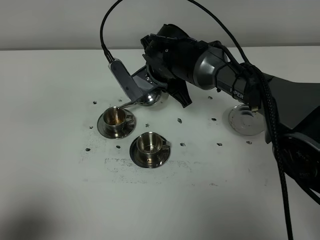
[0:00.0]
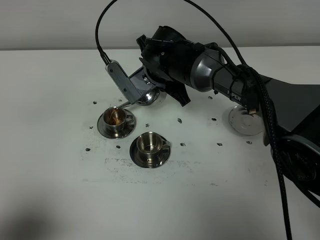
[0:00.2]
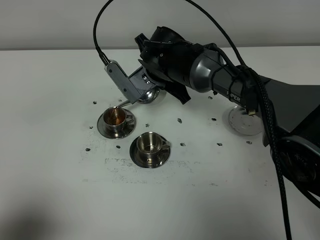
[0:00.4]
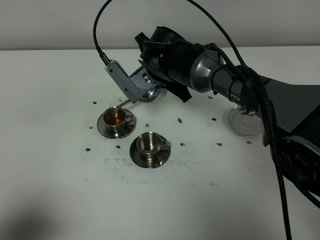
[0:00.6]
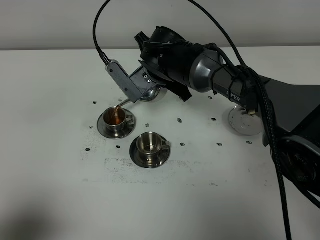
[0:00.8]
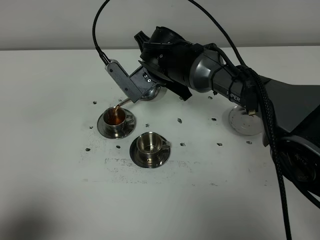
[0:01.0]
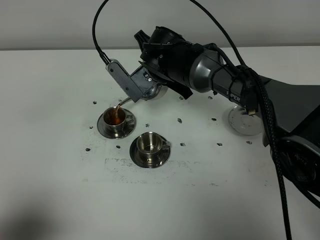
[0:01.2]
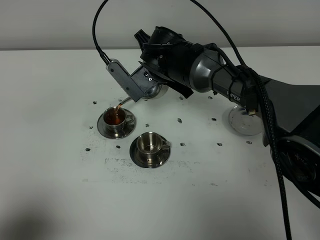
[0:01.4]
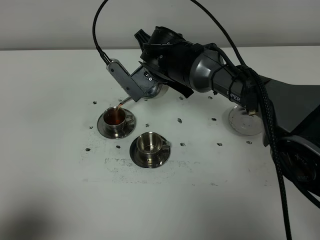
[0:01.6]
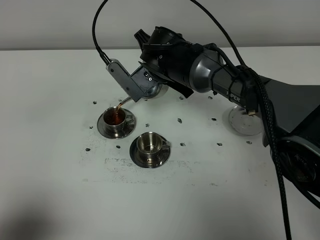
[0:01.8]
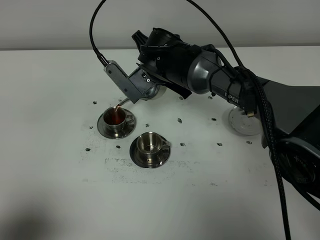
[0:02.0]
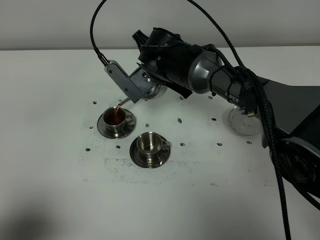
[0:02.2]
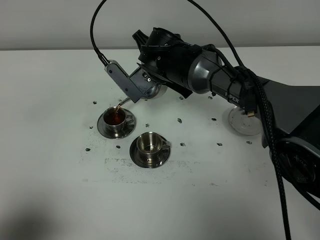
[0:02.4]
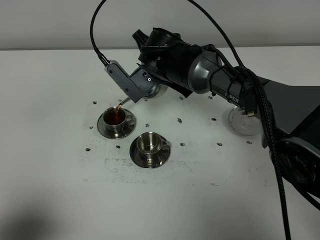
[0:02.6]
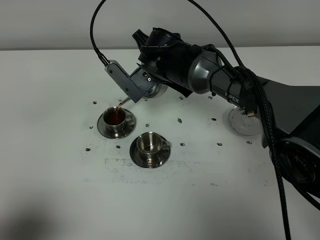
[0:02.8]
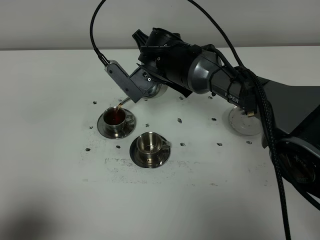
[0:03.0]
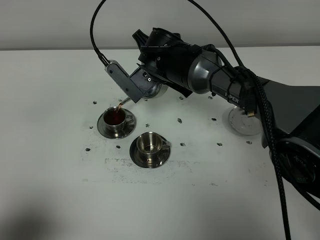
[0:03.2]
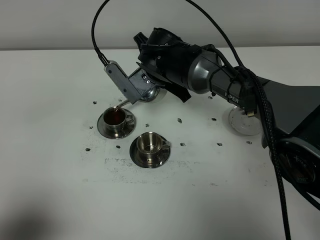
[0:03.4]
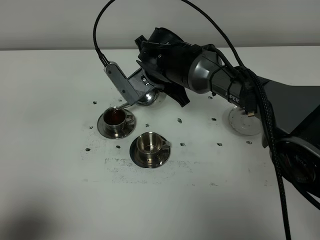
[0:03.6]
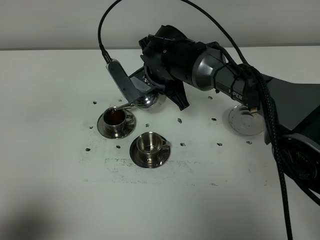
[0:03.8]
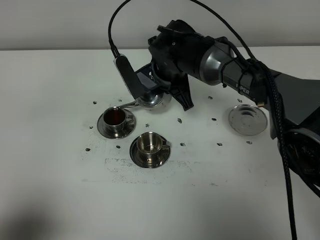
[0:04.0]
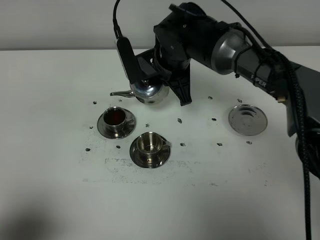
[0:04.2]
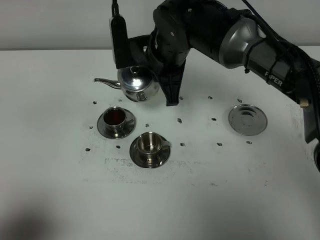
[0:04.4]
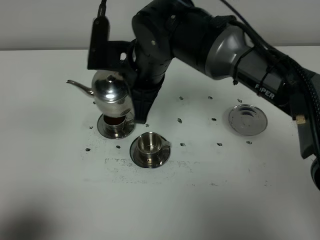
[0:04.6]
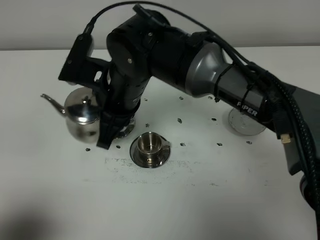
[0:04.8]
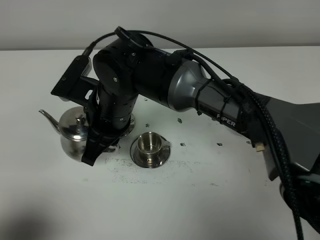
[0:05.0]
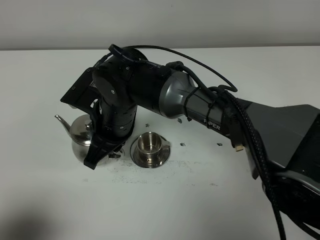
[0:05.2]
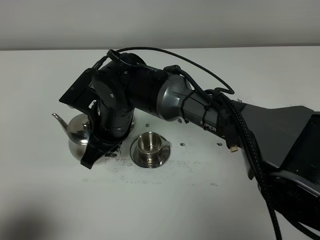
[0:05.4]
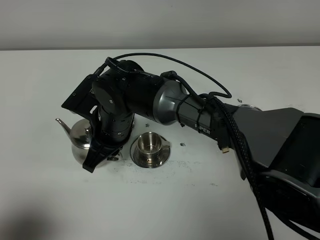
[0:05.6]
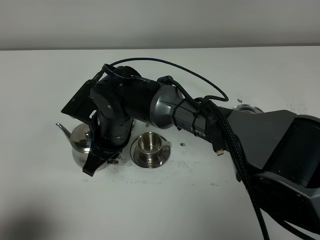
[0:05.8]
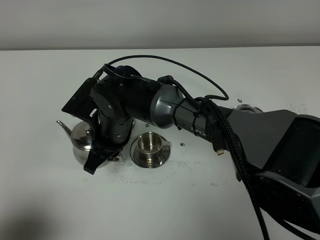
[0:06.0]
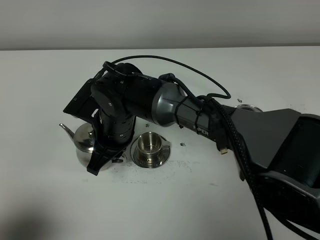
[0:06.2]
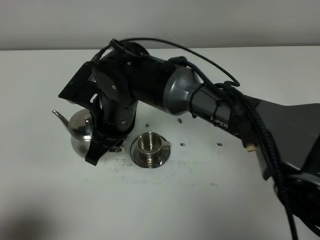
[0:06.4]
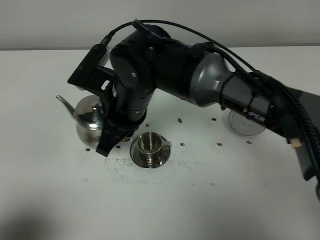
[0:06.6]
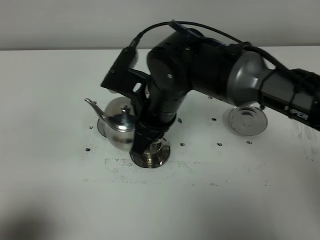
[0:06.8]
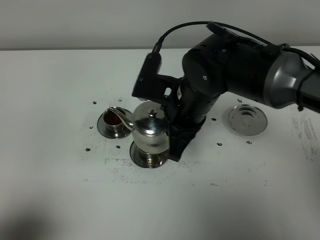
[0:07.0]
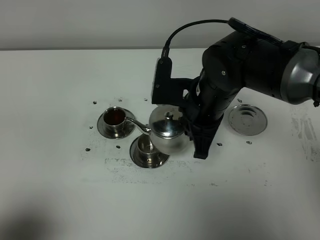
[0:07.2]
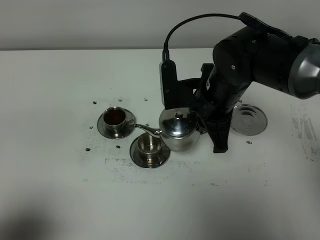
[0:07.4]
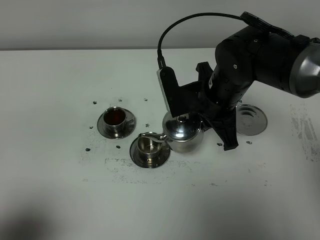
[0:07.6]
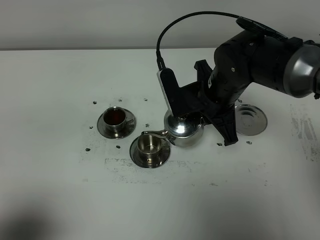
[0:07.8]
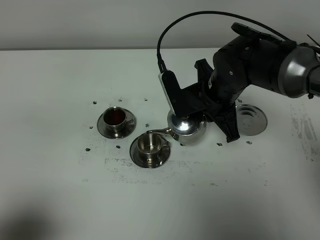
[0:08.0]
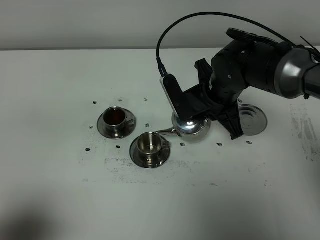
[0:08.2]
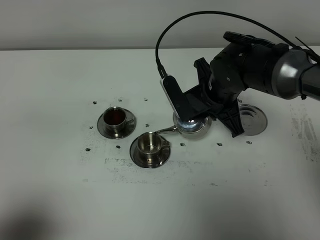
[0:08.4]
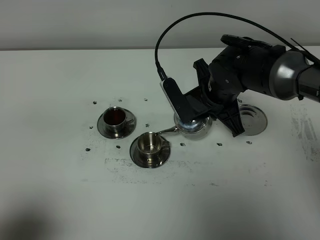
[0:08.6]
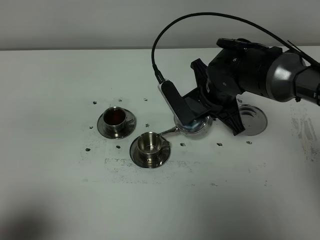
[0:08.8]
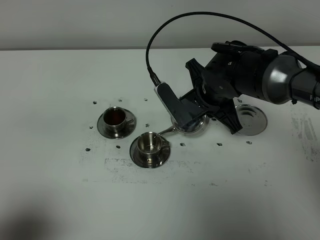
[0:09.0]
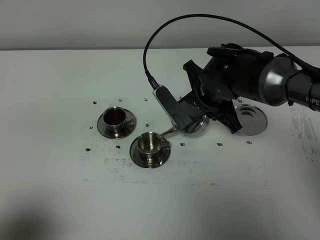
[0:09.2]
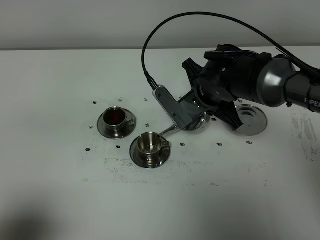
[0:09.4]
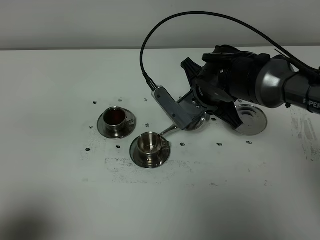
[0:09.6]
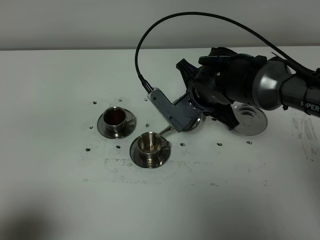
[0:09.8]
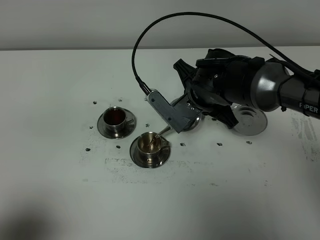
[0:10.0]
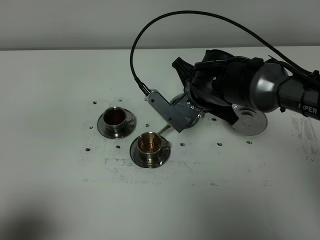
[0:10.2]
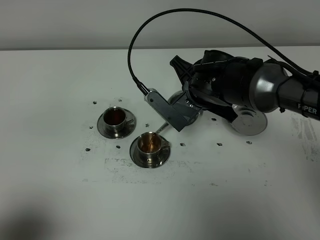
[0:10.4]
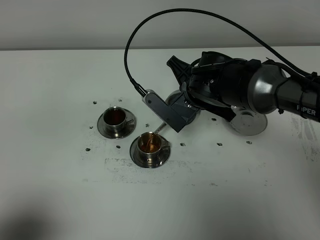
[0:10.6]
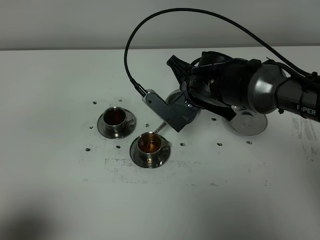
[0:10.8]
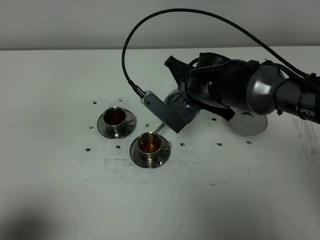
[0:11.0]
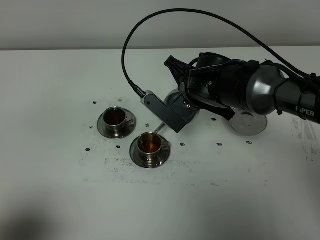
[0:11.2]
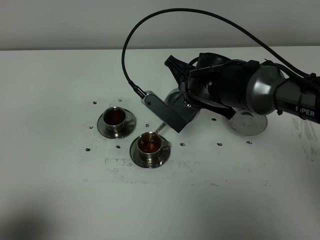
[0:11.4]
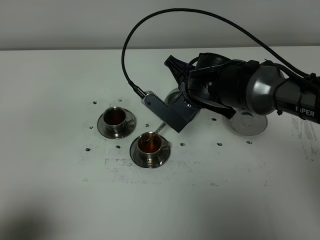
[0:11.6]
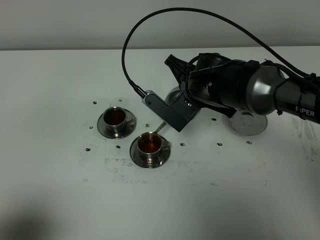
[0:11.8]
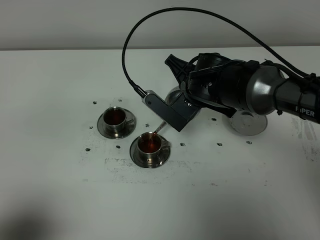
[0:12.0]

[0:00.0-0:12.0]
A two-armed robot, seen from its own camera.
Task of the whole recording: grasp the stainless steel teapot and pour the tea into the two stainless steel teacups one by one, put the stainless steel teapot back in its original place.
Step, 0:00.0 to 0:03.6: Pour tea into the teacup with the right gripper.
0:00.0 to 0:01.6: The grippers move only a little.
0:01.6 to 0:03.0: Both grippers stay about where they are.
0:03.0 to 0:04.4: The right gripper moves upward, roughly 5 cm.
0:04.4 to 0:06.0: The right gripper moves downward, to the left and backward, about 15 cm.
0:06.0 to 0:07.6: The right gripper shifts about 20 cm to the right.
0:07.6 to 0:09.0: The right gripper shifts by roughly 5 cm.
0:09.0 to 0:10.4: There are only small adjustments of the grippers.
0:10.4 to 0:12.0: The grippers stay close to where they were, moving slightly.

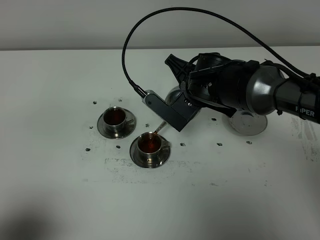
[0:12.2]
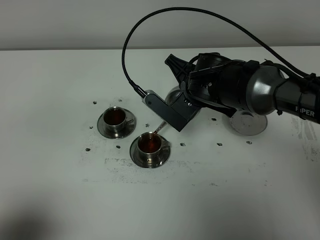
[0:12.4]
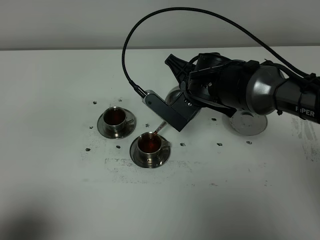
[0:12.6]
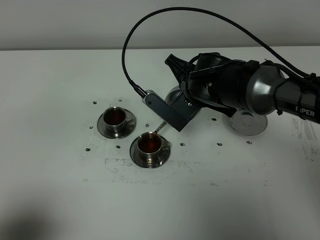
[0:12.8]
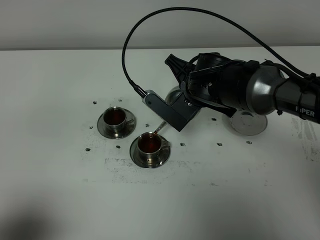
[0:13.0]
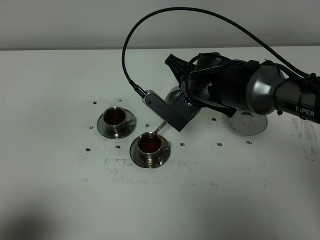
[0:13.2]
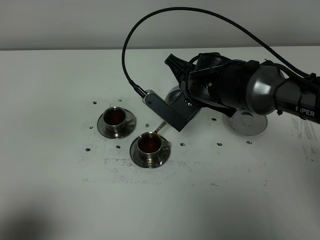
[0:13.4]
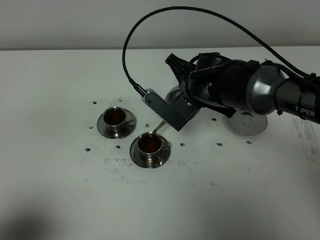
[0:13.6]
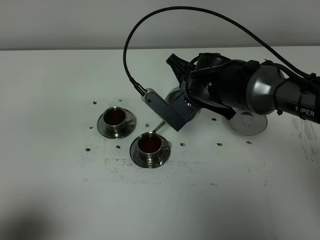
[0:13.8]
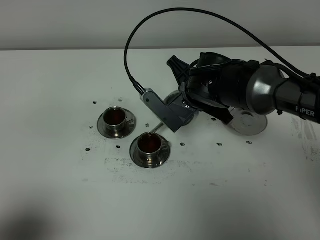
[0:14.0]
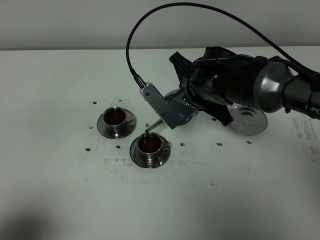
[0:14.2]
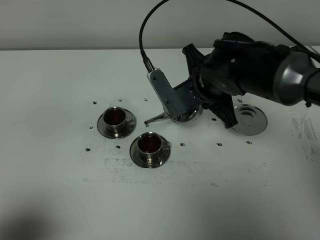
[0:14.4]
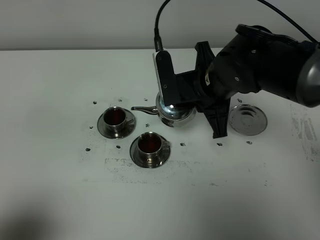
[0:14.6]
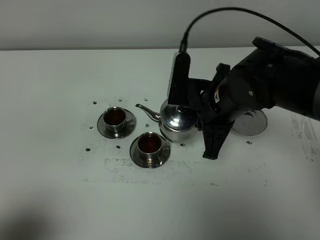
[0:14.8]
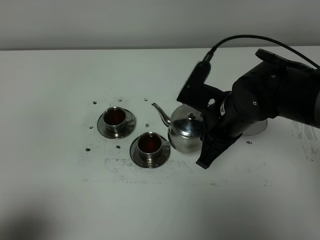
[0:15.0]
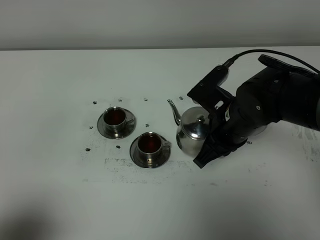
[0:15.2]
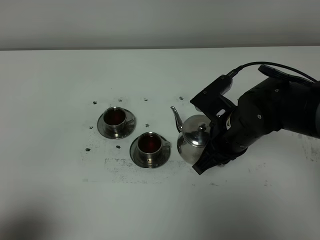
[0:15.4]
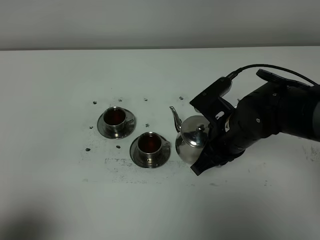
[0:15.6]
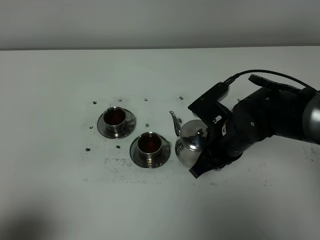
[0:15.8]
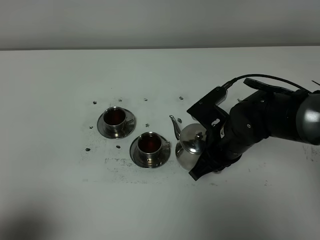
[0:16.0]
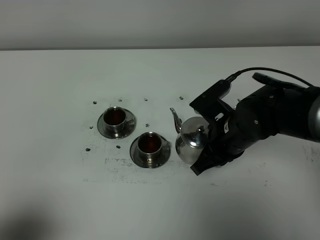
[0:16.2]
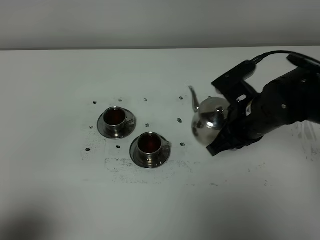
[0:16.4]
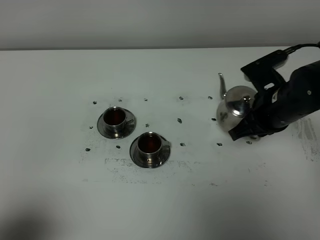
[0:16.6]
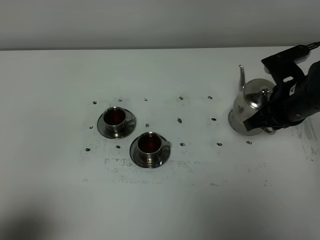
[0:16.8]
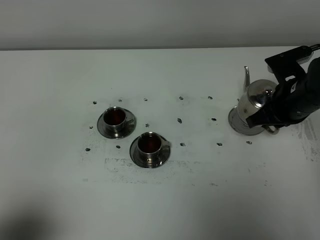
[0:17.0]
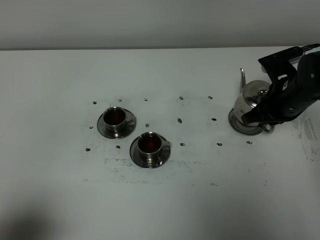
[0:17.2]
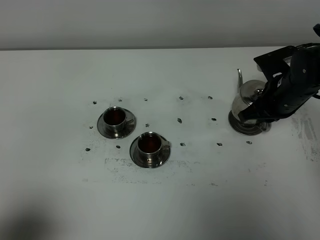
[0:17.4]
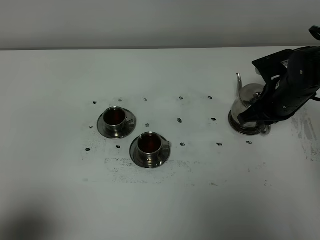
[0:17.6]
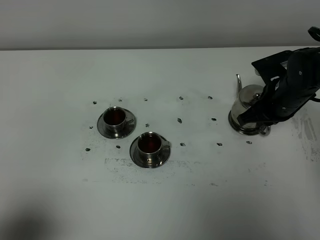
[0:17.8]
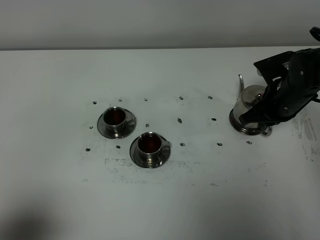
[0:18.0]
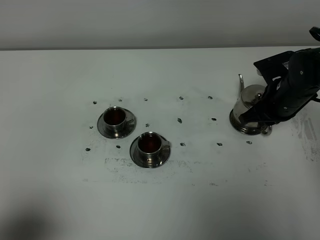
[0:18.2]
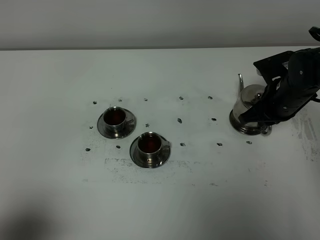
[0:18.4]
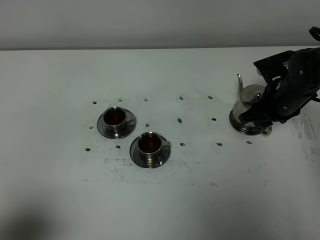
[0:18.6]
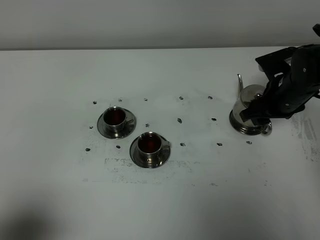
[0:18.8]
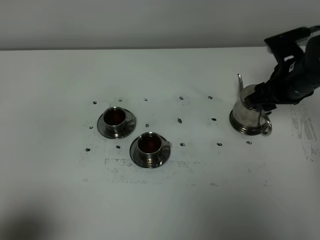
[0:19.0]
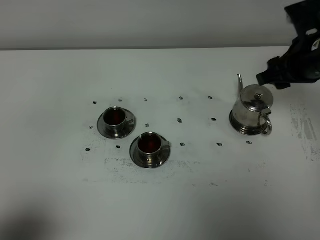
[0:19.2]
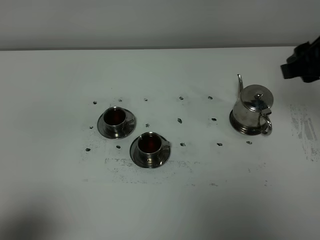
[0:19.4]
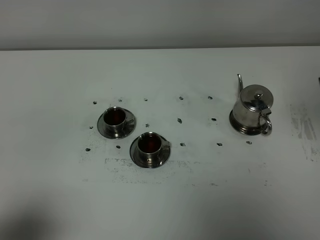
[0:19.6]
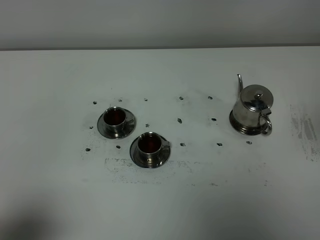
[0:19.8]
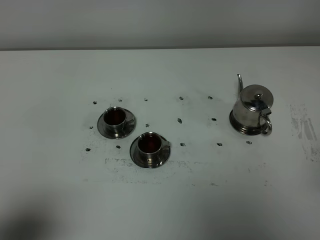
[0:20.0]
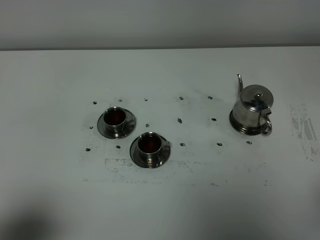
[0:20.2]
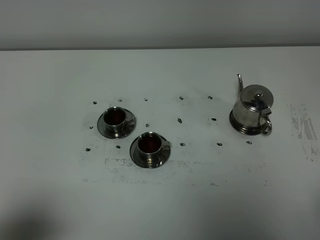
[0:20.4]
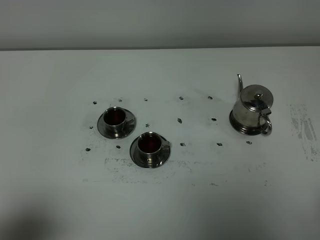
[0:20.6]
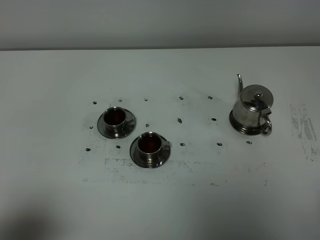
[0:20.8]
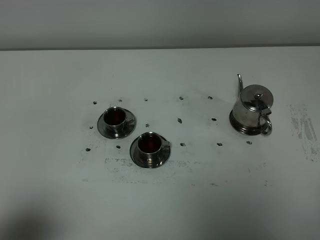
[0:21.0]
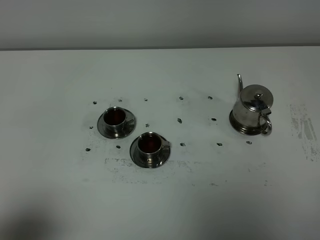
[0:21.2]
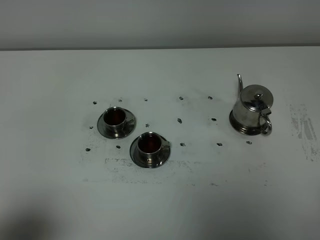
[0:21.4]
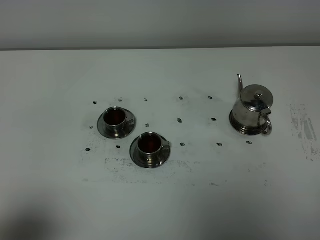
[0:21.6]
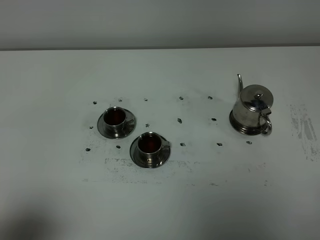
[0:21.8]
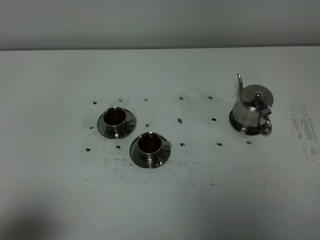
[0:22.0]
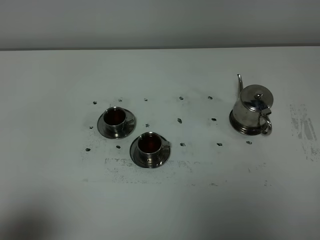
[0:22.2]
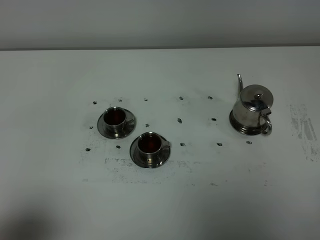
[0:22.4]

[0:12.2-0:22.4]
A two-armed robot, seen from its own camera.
Task of the whole recording: grasp the stainless steel teapot and pour the tea into the two stainless steel teacups one by one, put the stainless steel teapot back in its original place.
Step, 0:12.2 to 0:14.2: Pour tea into the teacup with the right gripper.
0:12.2 to 0:13.6: Neither gripper changes place.
0:13.6 to 0:15.2: The right gripper is displaced backward and to the right by about 10 cm.
0:15.2 to 0:16.6: The right gripper shifts about 10 cm to the right.
0:16.6 to 0:18.0: The right gripper moves forward, roughly 5 cm.
0:18.0 to 0:19.4: The right gripper moves upward and backward, approximately 20 cm, and opens up.
0:19.4 to 0:21.0: The right gripper travels backward by roughly 25 cm, and closes up.
0:21.0 to 0:22.4: Both grippers stay about where they are.
